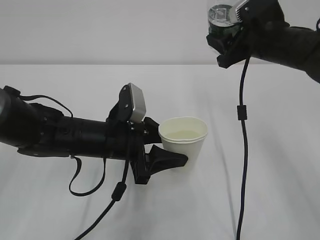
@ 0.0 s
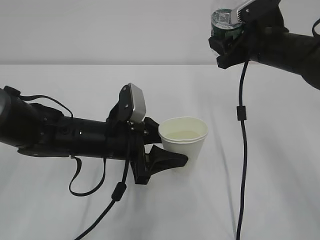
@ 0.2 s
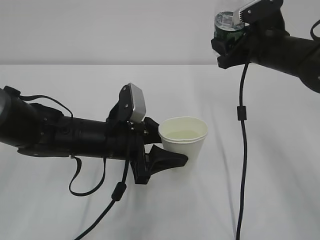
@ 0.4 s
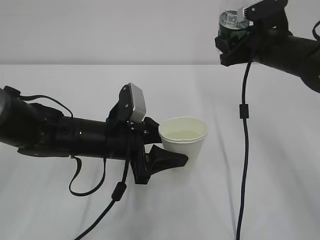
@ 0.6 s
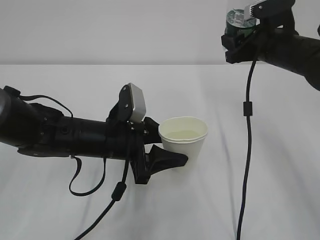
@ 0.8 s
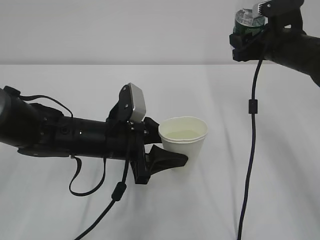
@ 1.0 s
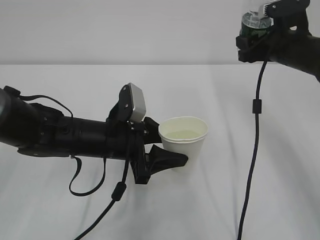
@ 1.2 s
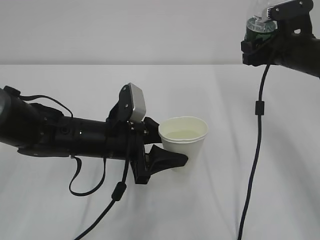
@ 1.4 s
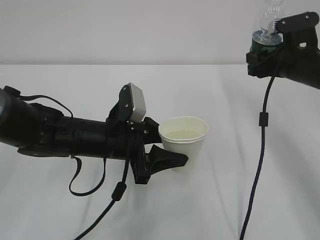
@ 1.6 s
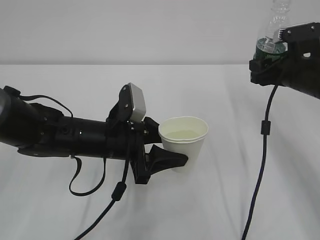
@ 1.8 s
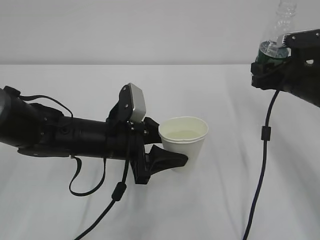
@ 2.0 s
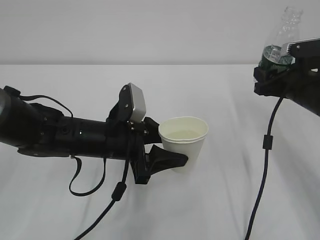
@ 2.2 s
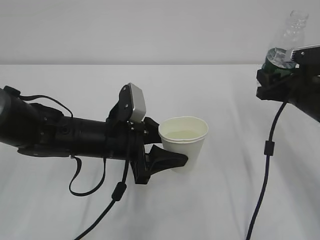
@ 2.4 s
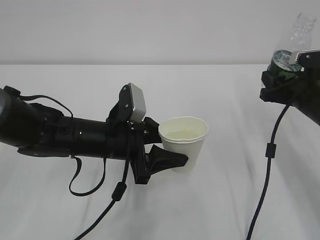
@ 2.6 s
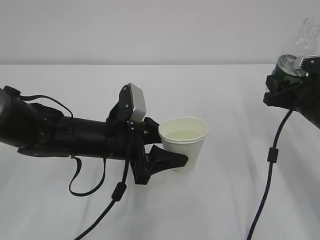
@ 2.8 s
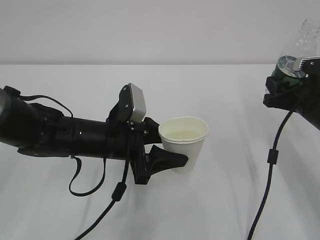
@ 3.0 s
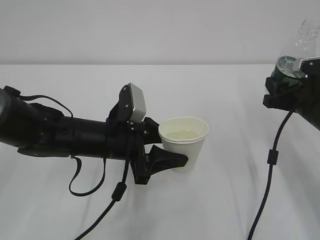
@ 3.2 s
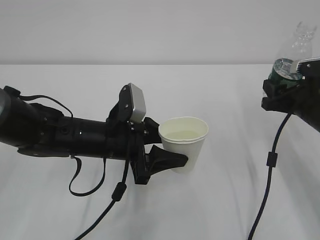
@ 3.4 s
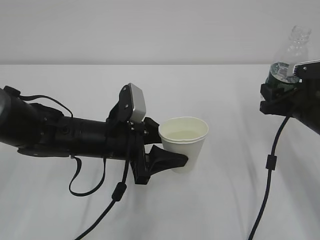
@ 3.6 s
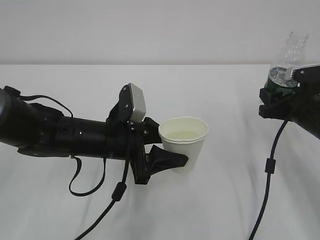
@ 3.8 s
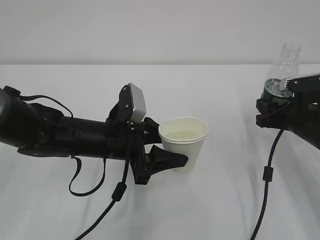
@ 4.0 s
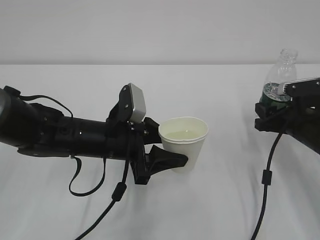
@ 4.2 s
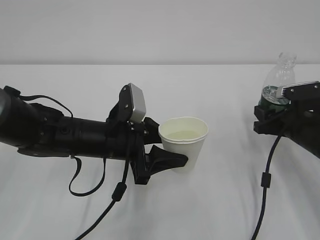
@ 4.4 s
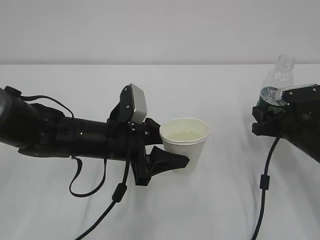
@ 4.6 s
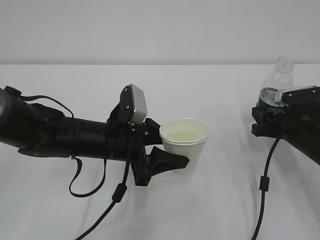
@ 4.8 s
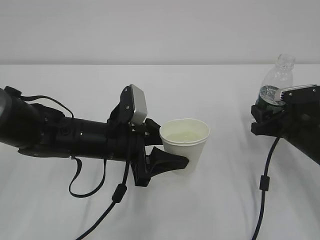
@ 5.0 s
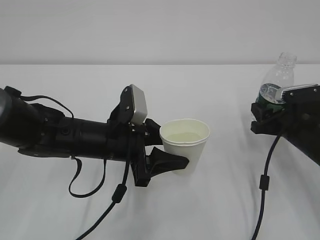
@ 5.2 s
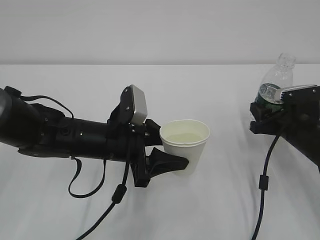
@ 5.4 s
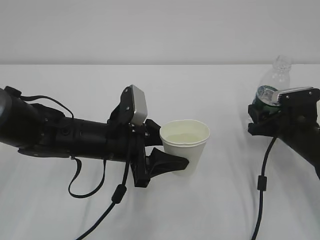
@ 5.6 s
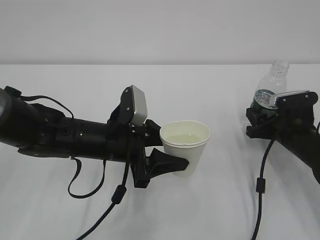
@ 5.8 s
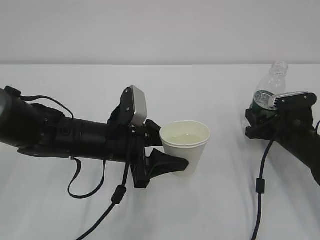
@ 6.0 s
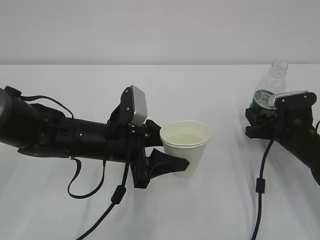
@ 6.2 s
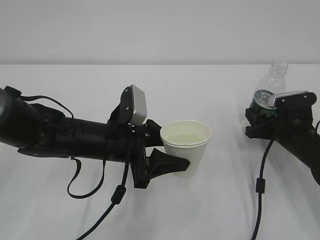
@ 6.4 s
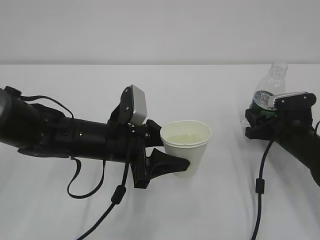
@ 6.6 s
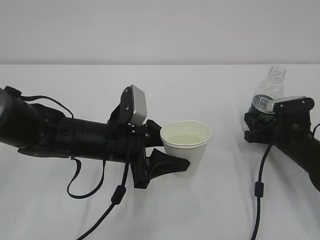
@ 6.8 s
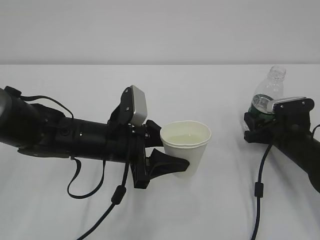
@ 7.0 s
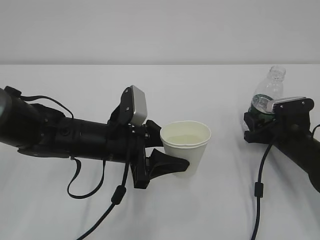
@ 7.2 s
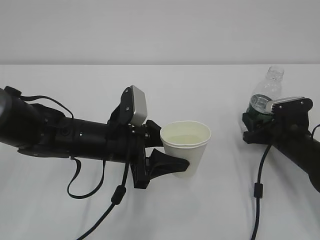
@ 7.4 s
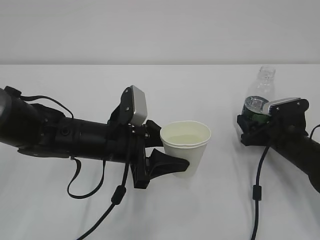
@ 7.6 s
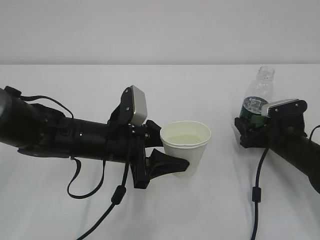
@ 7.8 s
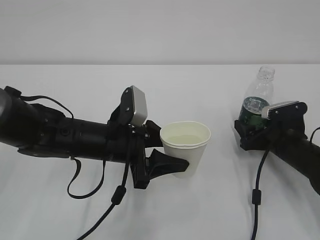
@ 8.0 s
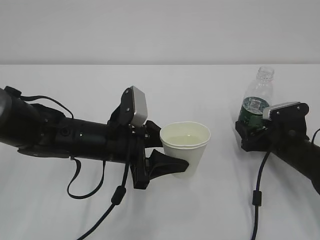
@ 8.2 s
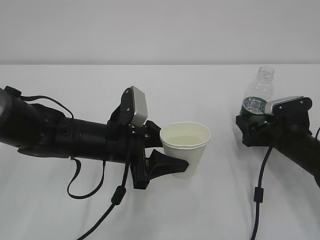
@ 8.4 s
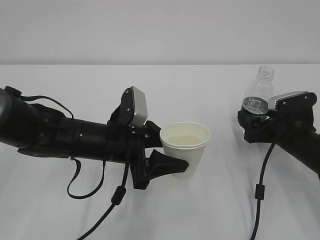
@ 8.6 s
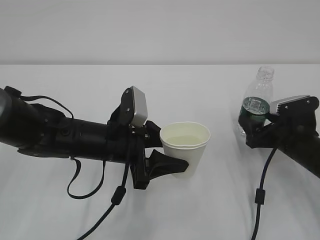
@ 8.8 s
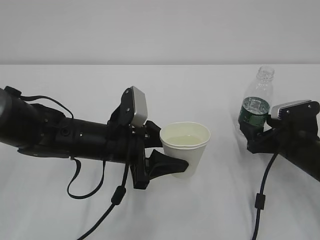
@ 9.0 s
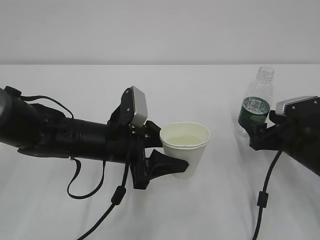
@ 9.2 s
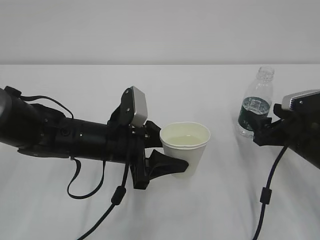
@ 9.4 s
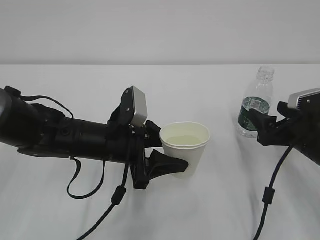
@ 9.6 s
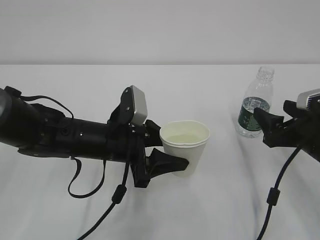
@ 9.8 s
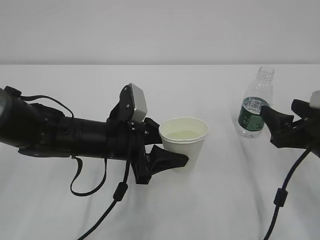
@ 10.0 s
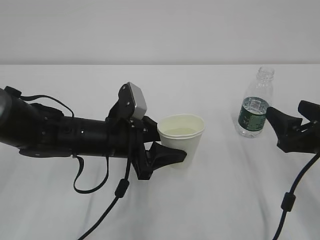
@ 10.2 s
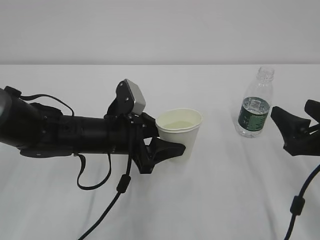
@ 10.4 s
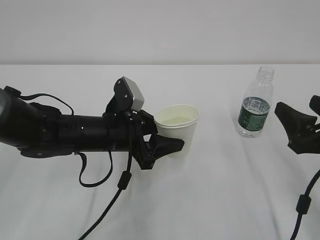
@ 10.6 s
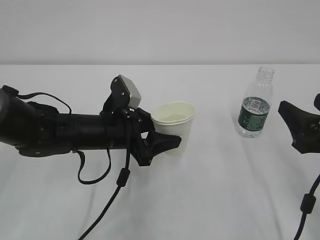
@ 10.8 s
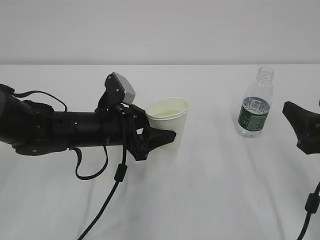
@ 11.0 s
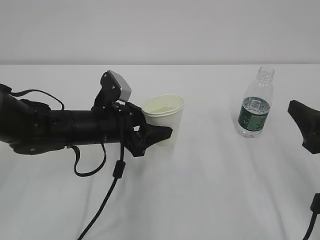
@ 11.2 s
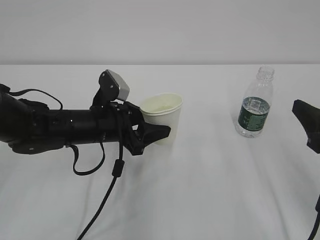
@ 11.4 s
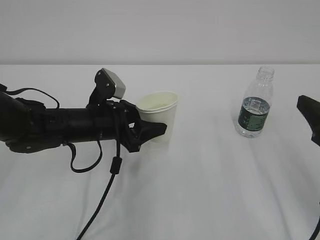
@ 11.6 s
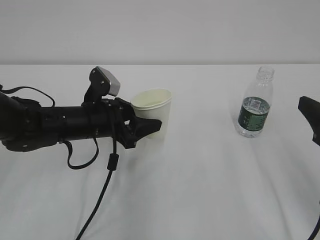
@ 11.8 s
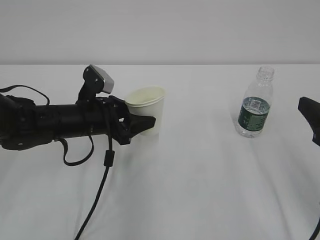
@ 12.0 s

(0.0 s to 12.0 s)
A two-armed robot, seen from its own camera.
0.0 s - 1.6 s: The right gripper moves to the right, about 5 cm.
1.6 s - 3.0 s: The right gripper heads backward and downward, covering approximately 10 cm.
3.0 s - 4.4 s: The right gripper shifts some 5 cm downward.
4.4 s - 6.0 s: The grippers stay close to where they were, moving slightly.
6.0 s - 7.6 s: The right gripper opens its fingers.
7.6 s - 9.0 s: The right gripper opens up.
9.0 s - 10.4 s: The right gripper is displaced backward and upward by some 15 cm.
10.4 s - 12.0 s: The left gripper ends up some 5 cm from where it was; the right gripper moves upward, about 5 cm.

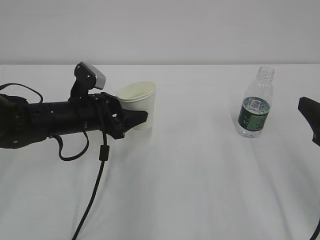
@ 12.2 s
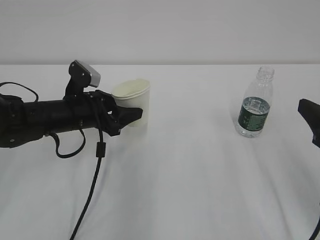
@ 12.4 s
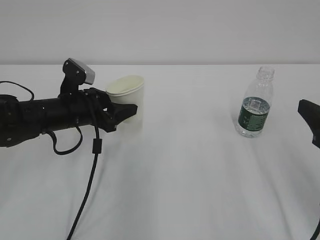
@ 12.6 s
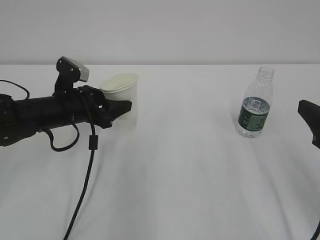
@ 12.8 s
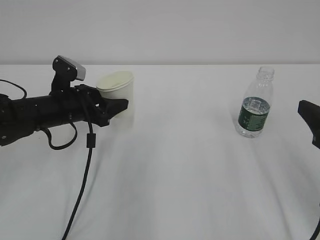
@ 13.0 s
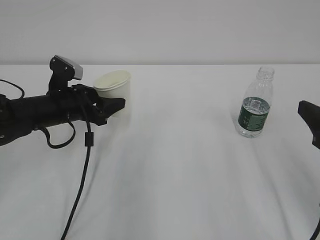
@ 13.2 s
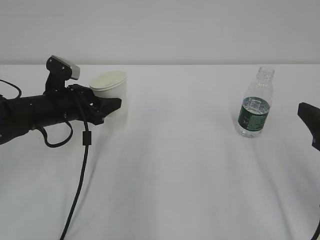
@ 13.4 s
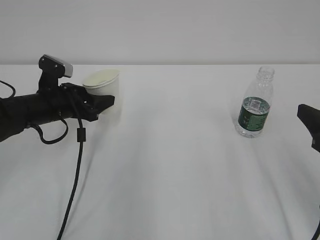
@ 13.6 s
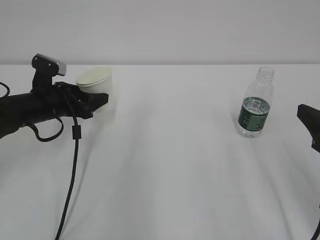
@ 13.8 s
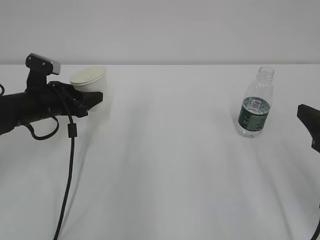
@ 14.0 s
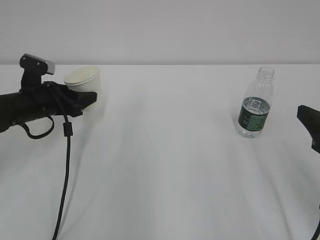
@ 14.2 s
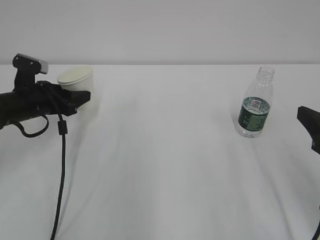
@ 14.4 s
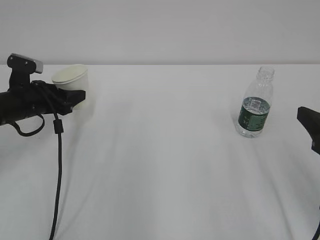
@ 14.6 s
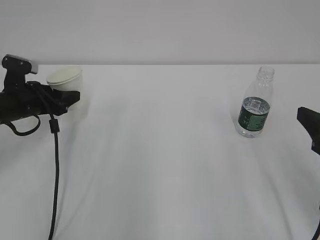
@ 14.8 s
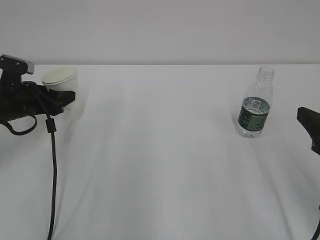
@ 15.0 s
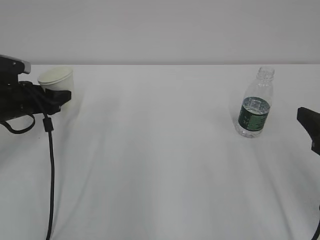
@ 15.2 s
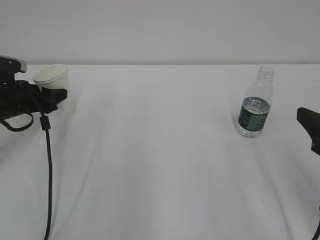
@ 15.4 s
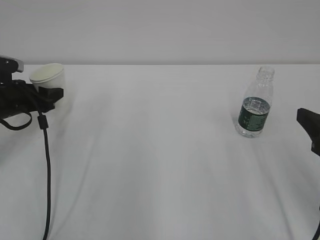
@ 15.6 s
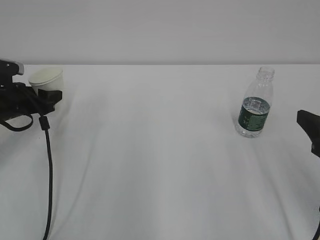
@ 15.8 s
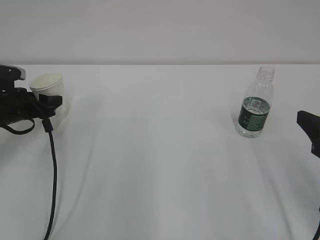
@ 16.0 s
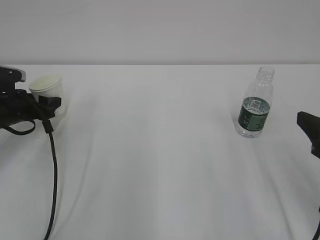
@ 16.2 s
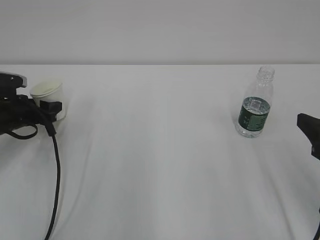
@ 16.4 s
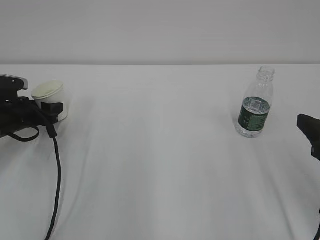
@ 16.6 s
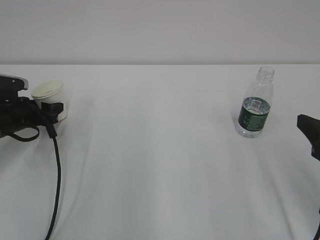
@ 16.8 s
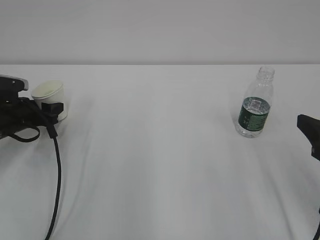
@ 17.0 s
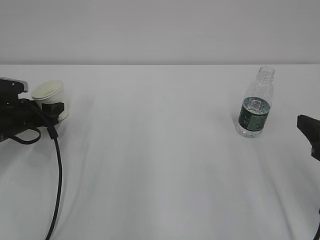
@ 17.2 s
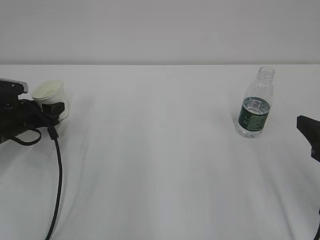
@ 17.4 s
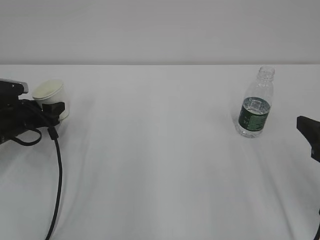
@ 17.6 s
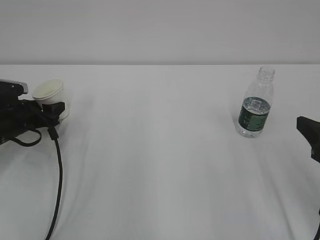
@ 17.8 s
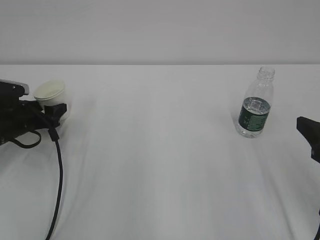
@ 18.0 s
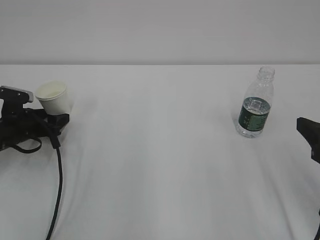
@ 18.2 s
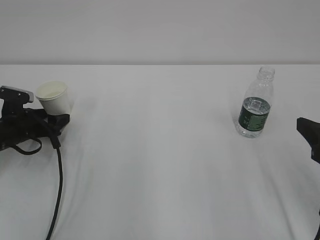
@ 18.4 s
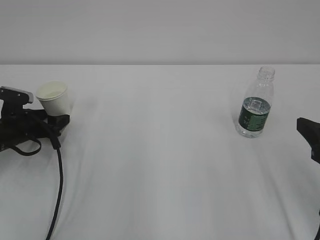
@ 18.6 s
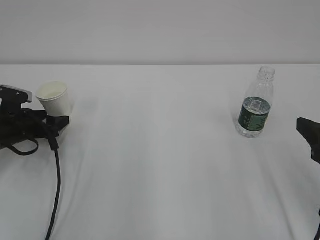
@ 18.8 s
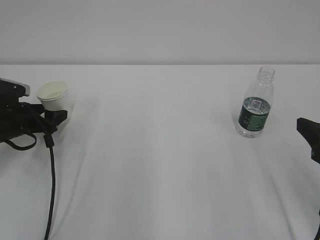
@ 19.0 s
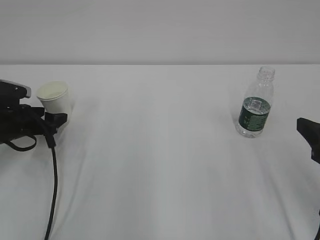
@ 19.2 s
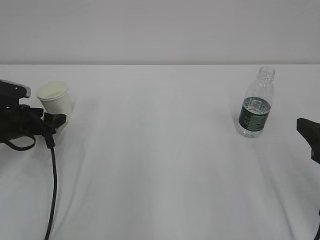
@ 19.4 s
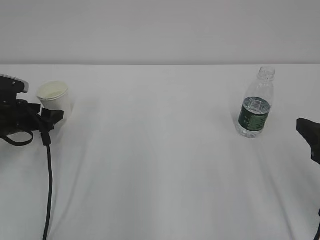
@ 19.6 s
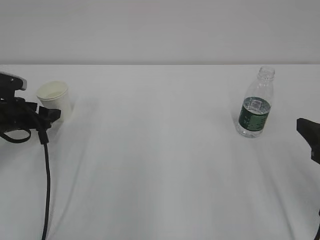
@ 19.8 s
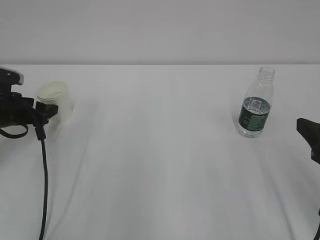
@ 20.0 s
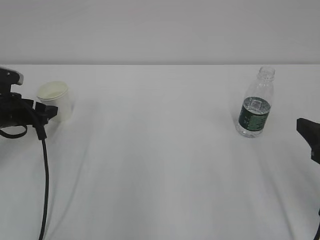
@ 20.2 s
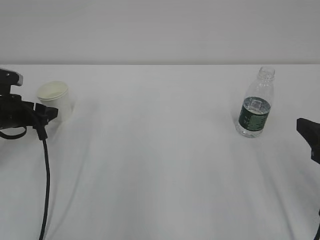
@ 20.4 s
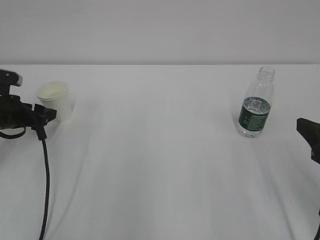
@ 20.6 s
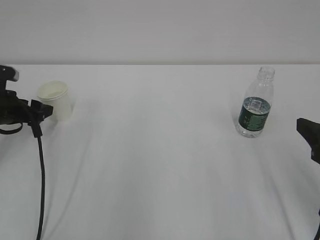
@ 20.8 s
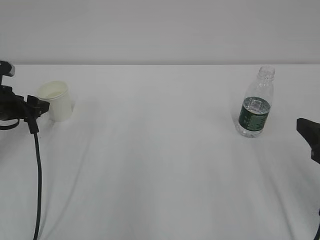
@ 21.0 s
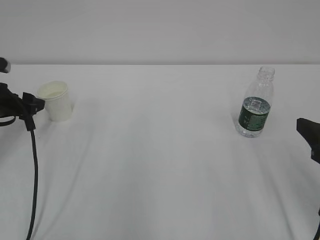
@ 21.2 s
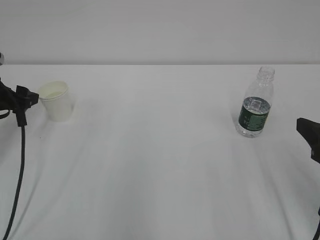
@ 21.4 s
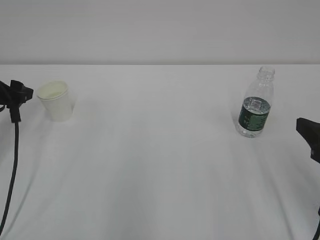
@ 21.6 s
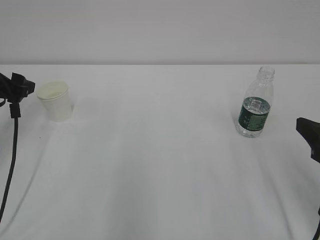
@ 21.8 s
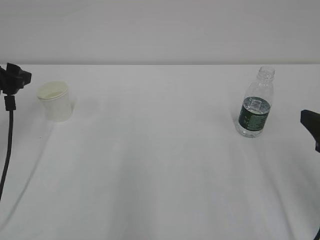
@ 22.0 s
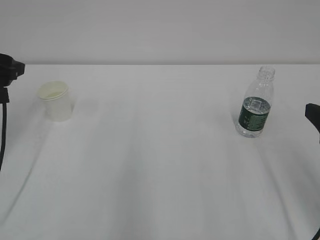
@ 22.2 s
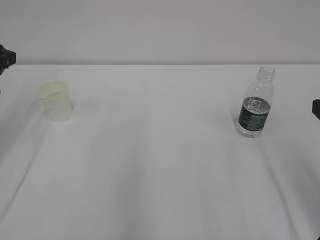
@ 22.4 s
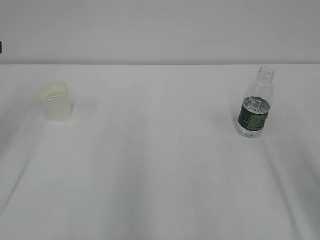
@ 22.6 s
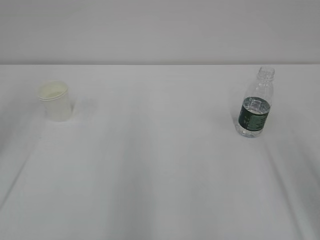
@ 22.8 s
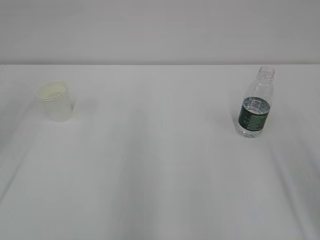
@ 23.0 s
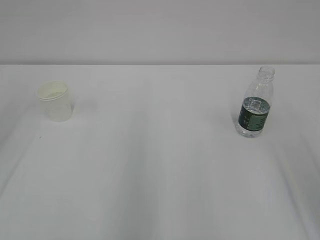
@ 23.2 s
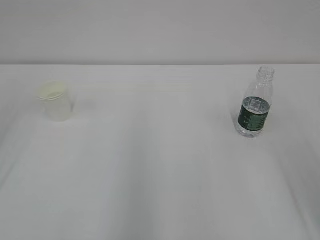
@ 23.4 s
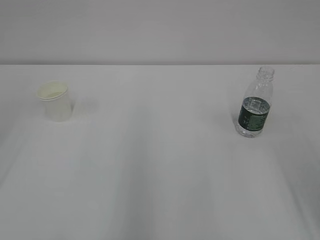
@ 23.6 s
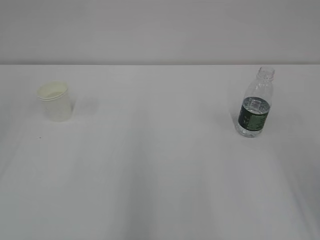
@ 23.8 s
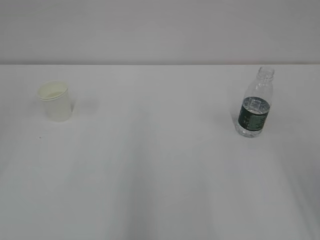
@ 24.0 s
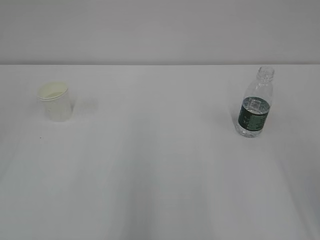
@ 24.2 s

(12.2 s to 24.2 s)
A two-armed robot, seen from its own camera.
12.2 s - 13.8 s: The left gripper heads to the left, covering roughly 10 cm.
13.8 s - 15.2 s: The left gripper is displaced to the left by about 5 cm.
15.2 s - 16.6 s: The grippers make only small movements.
16.6 s - 18.2 s: The left gripper opens up.
18.2 s - 19.8 s: There are only small adjustments of the grippers.
19.8 s - 21.2 s: The left gripper ends up roughly 5 cm from where it was.
21.2 s - 22.6 s: The right gripper shifts by about 5 cm; the left gripper goes roughly 15 cm upward.
